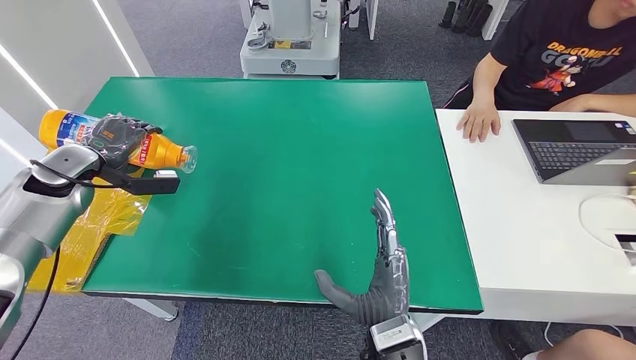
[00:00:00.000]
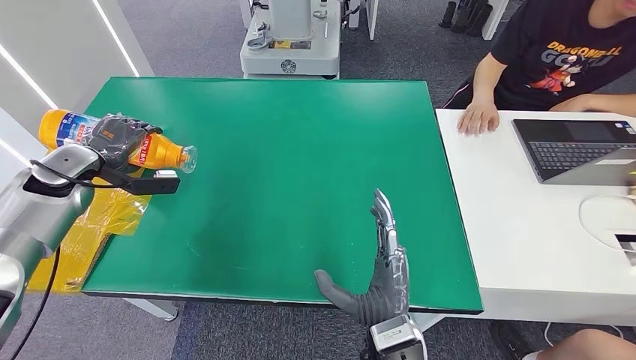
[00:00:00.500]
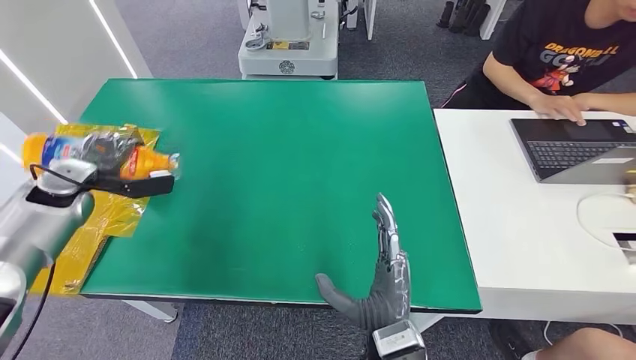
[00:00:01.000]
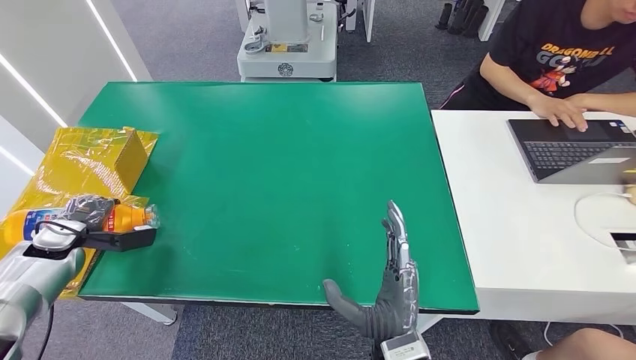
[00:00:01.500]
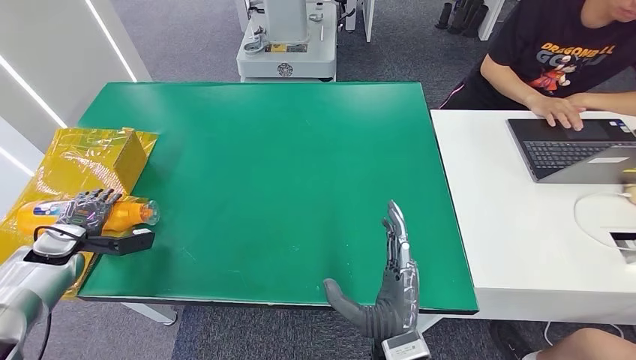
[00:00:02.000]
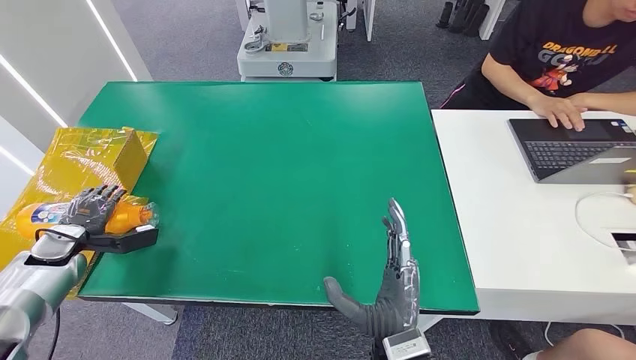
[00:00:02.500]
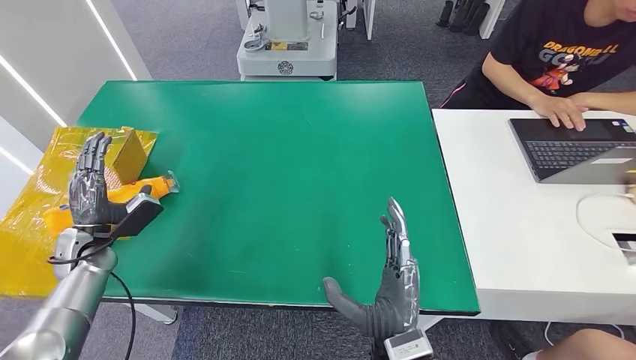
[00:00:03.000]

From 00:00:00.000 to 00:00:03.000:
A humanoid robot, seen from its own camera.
Step, from 00:00:00.000 to 00:00:03.000: Turn the bottle to the front side.
From 00:00:01.500 to 00:00:03.000: The left hand goes approximately 5 cm to the right.

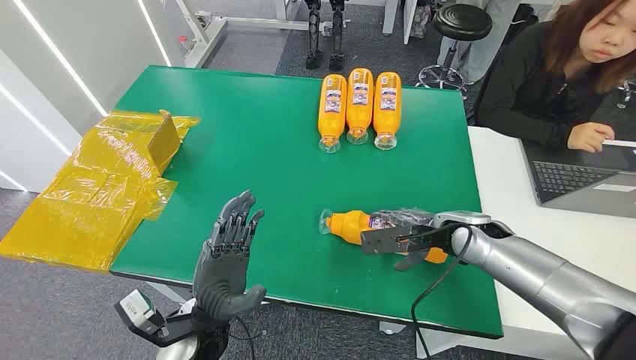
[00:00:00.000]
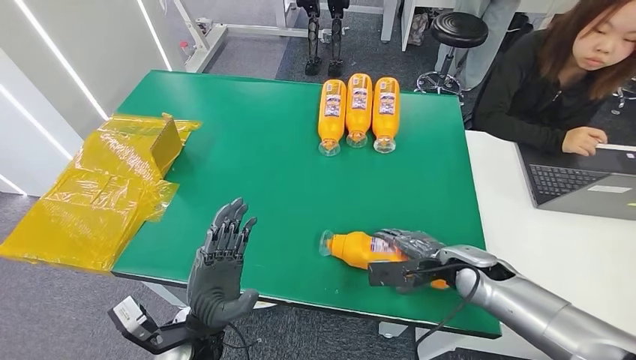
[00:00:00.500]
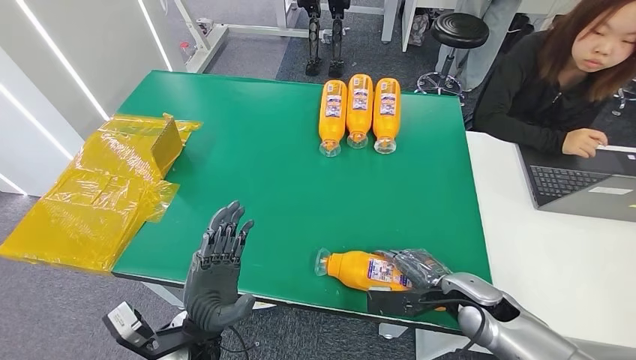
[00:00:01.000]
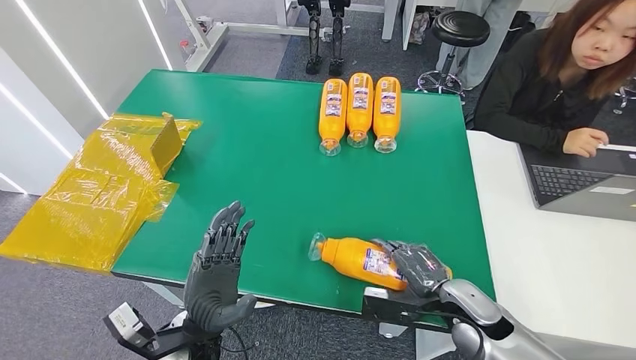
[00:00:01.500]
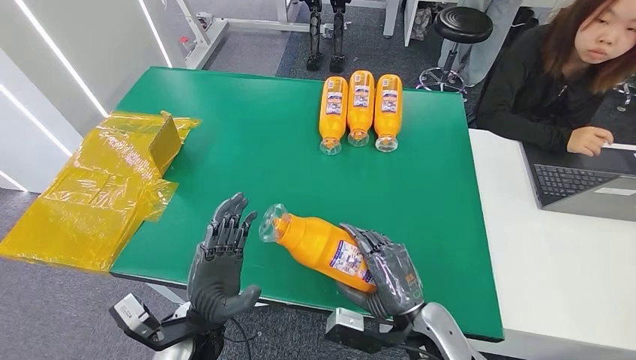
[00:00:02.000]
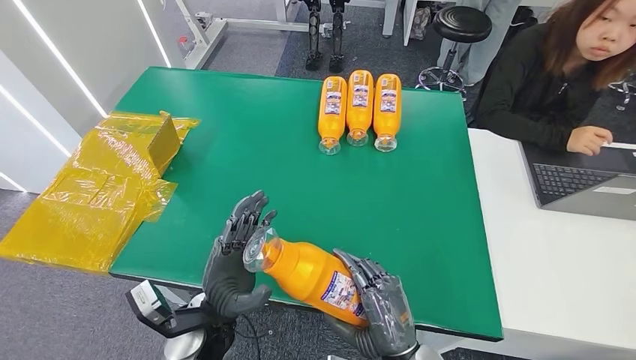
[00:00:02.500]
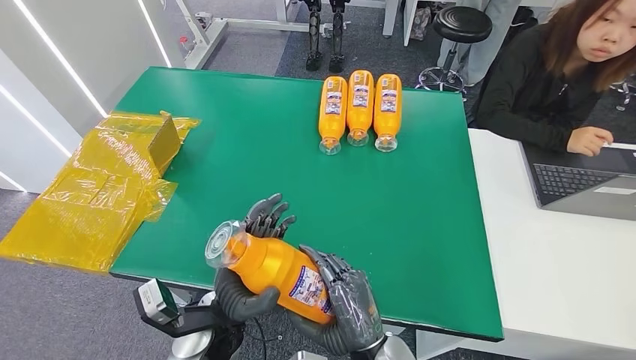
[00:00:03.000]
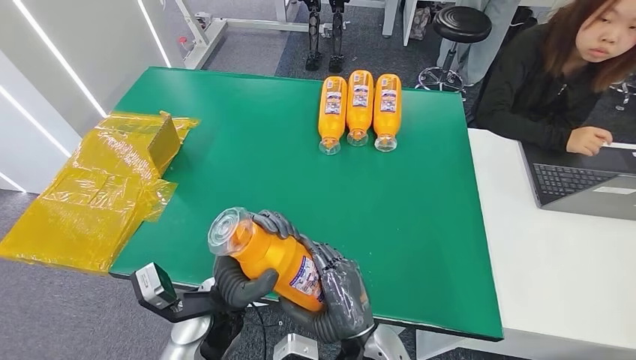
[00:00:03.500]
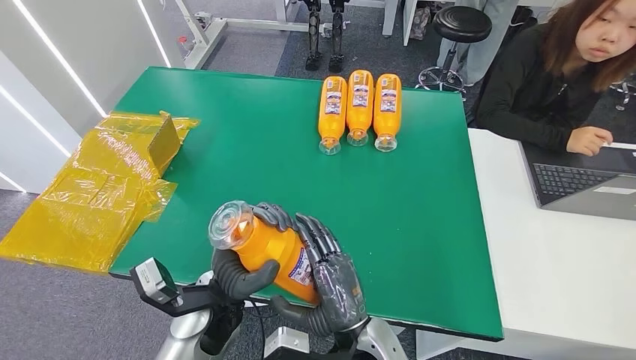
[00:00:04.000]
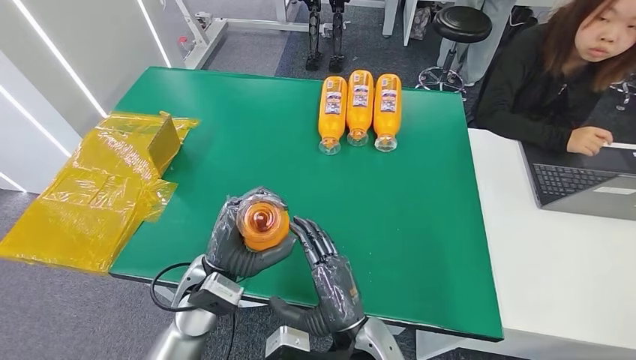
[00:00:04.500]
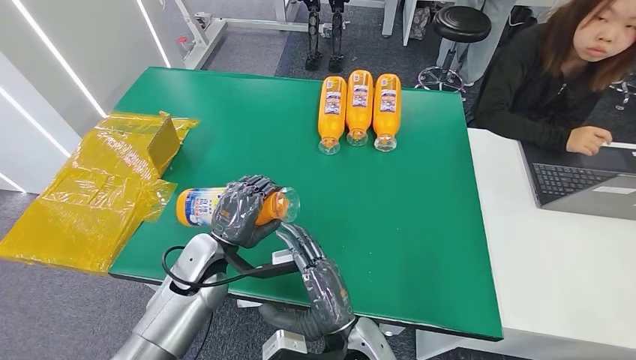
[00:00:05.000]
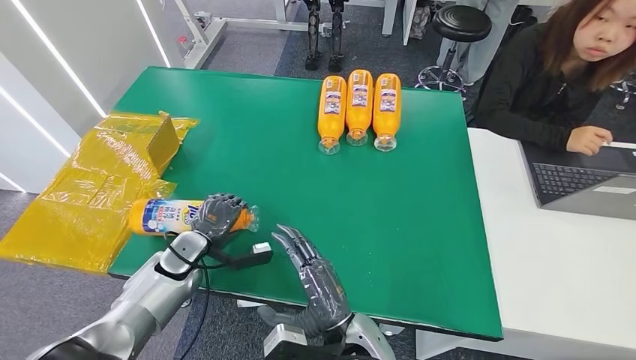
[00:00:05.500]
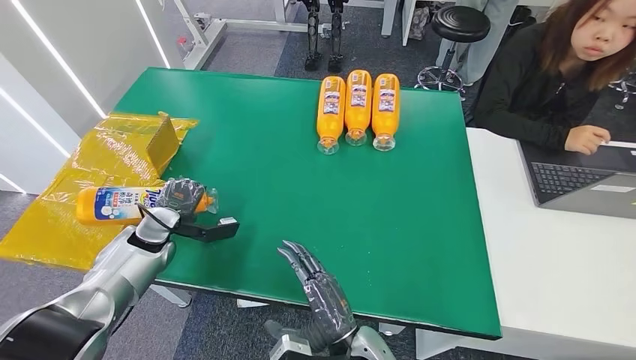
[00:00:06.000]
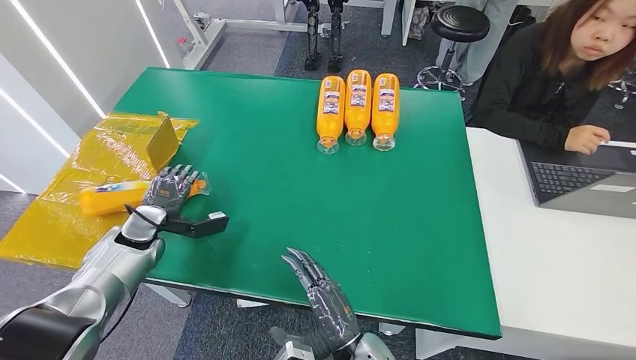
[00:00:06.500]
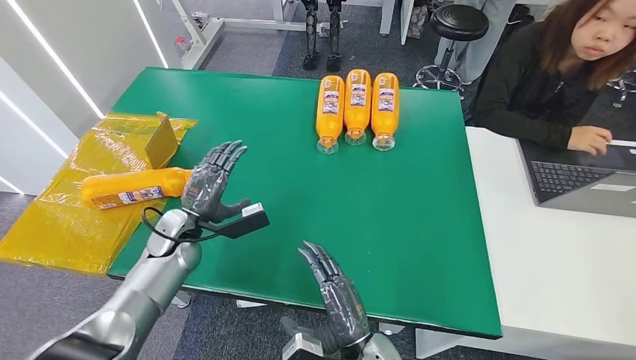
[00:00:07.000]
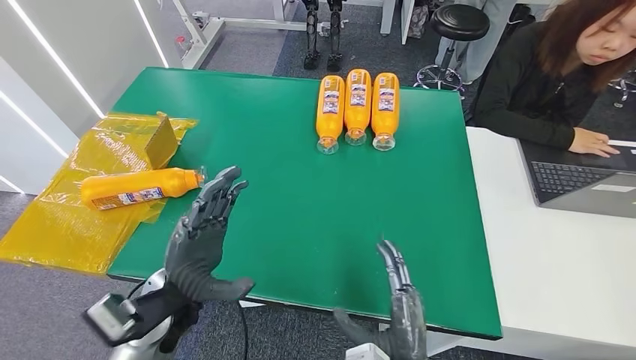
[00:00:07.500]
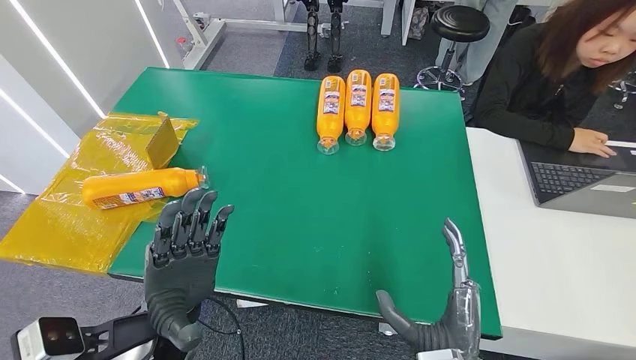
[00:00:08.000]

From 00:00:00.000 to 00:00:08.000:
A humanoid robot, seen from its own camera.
Step, from 00:00:00.000 to 00:00:02.500: Pick up the bottle from the table.
Step, from 00:00:03.000 to 00:00:08.000: Turn the bottle to the front side.
From 00:00:02.000 to 00:00:04.000: The left hand shifts by about 5 cm. Meanwhile the right hand is displaced to the left by some 10 cm.
From 00:00:04.000 to 00:00:06.000: The left hand shifts about 25 cm to the left and forward.
From 00:00:06.000 to 00:00:08.000: The left hand is displaced to the right, backward and upward by some 25 cm, while the right hand heads to the right, backward and upward, covering roughly 15 cm.
